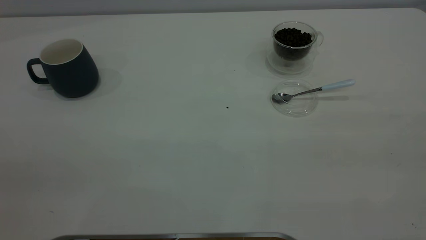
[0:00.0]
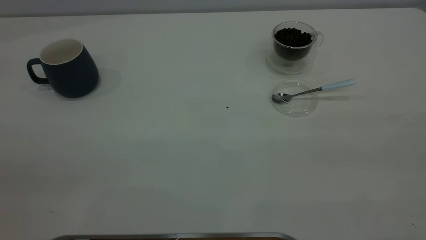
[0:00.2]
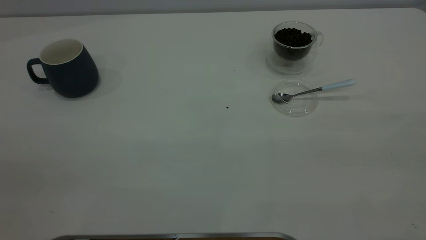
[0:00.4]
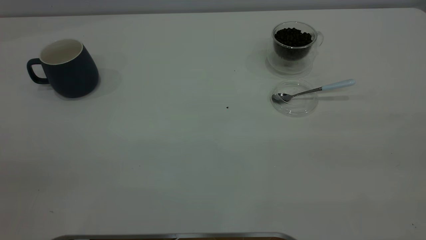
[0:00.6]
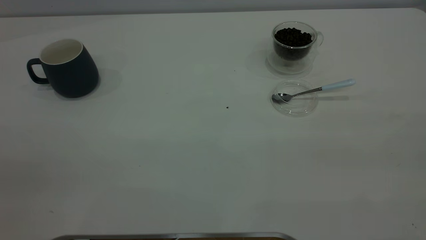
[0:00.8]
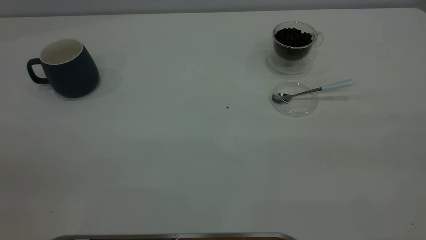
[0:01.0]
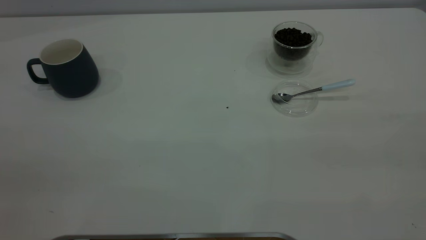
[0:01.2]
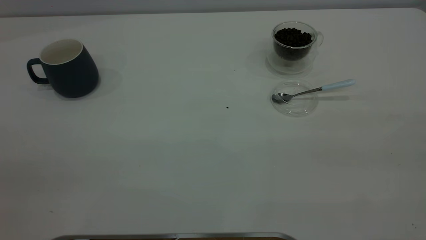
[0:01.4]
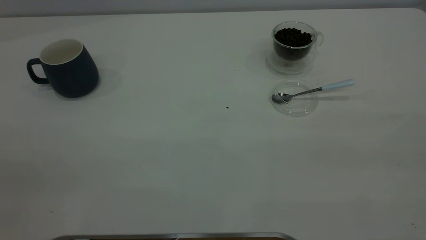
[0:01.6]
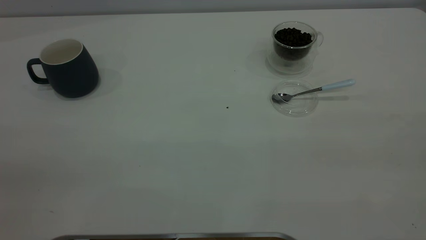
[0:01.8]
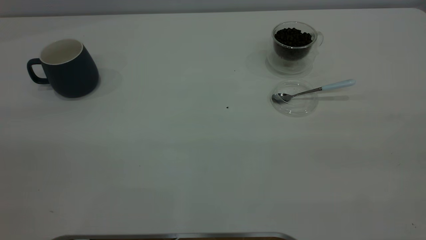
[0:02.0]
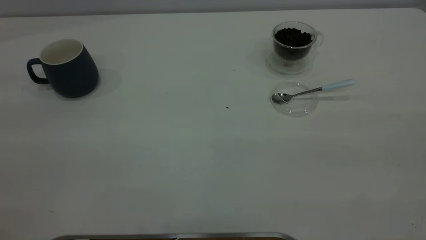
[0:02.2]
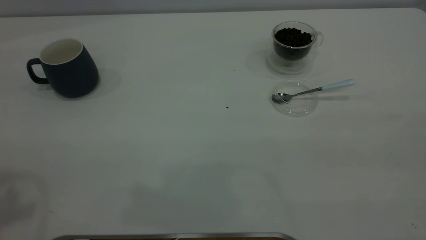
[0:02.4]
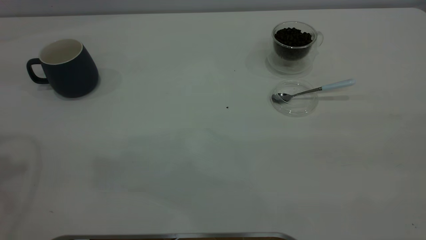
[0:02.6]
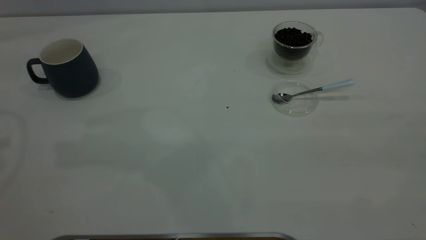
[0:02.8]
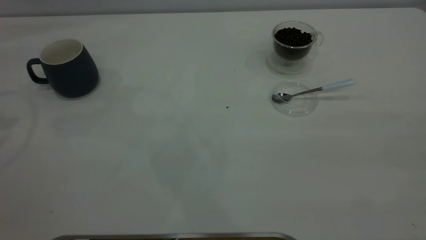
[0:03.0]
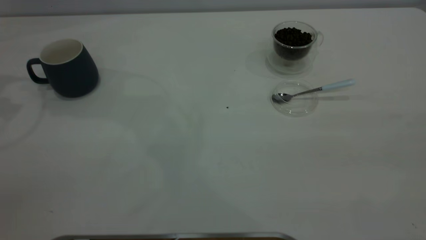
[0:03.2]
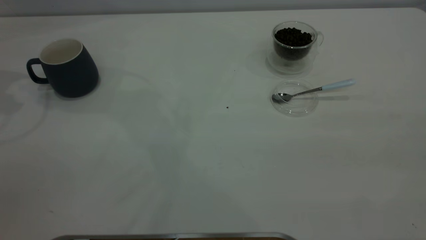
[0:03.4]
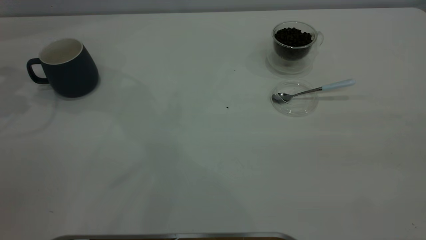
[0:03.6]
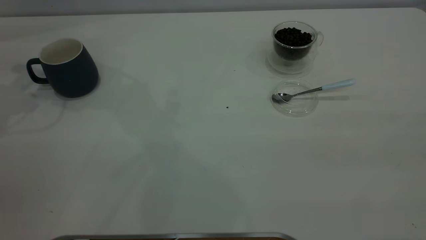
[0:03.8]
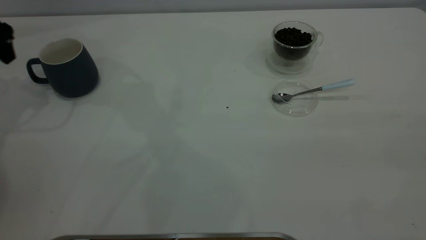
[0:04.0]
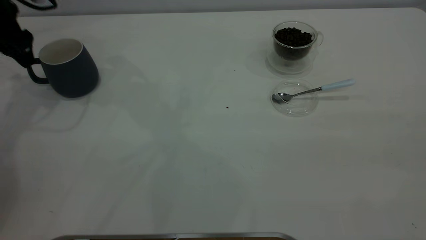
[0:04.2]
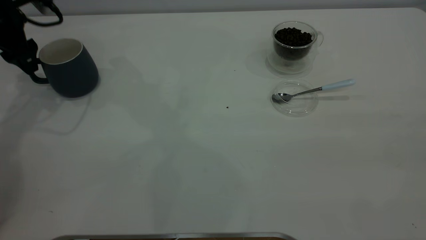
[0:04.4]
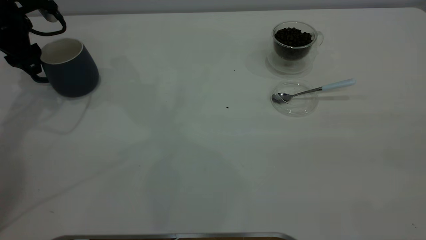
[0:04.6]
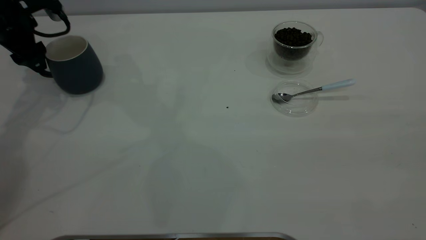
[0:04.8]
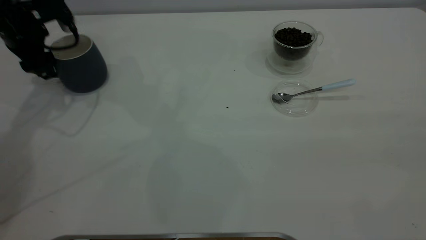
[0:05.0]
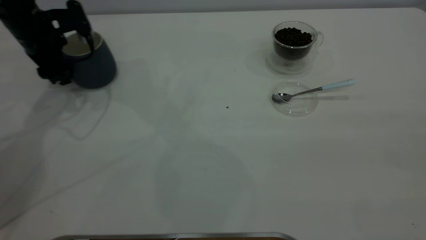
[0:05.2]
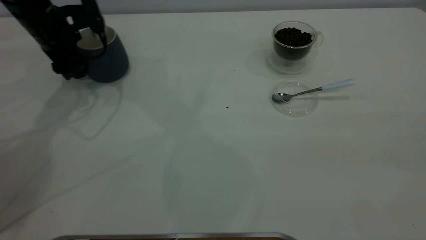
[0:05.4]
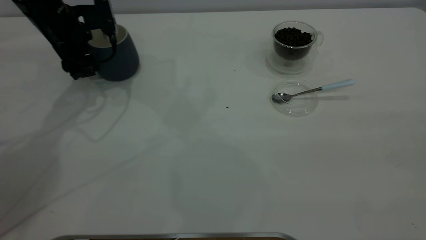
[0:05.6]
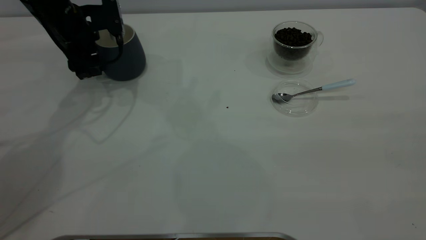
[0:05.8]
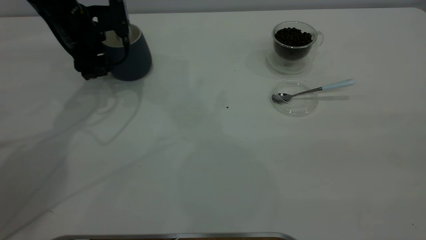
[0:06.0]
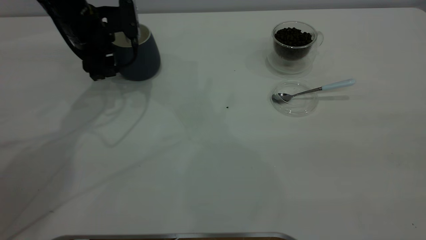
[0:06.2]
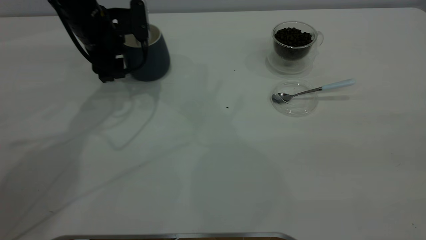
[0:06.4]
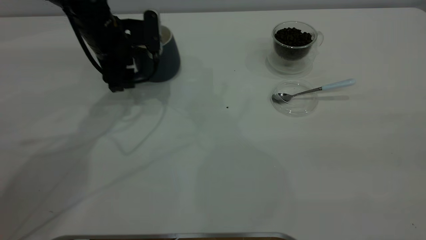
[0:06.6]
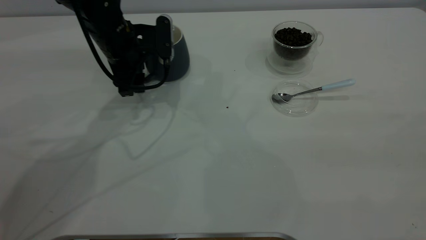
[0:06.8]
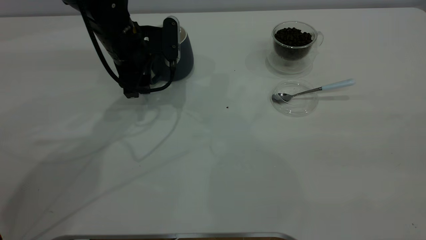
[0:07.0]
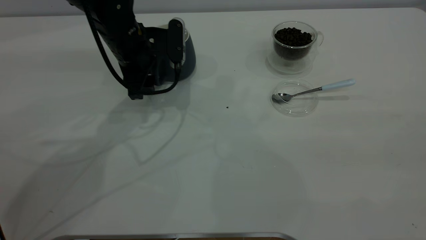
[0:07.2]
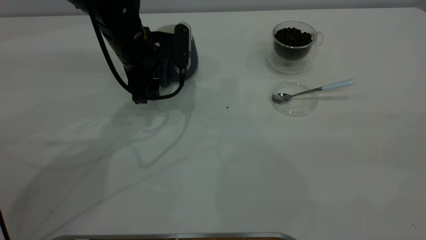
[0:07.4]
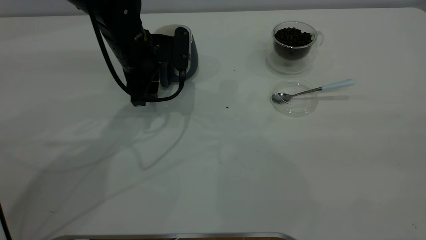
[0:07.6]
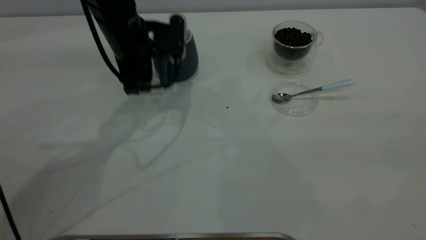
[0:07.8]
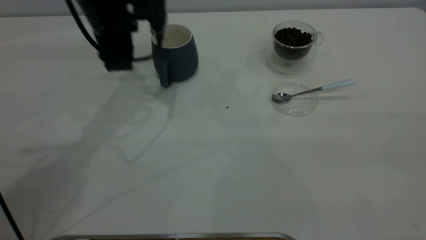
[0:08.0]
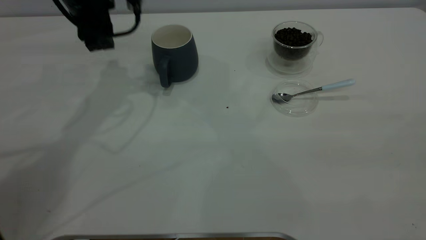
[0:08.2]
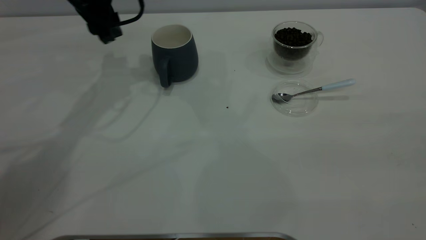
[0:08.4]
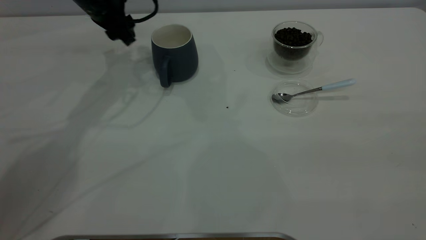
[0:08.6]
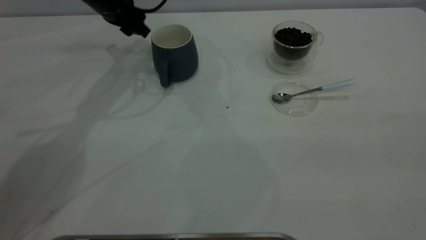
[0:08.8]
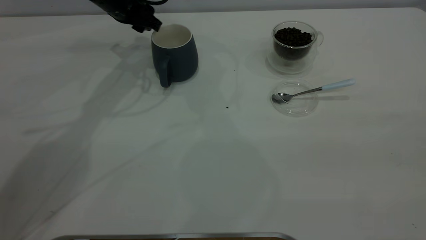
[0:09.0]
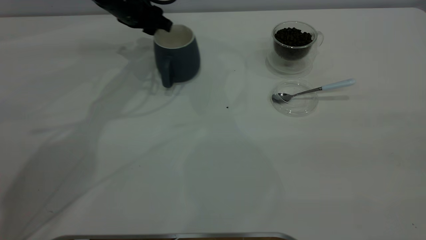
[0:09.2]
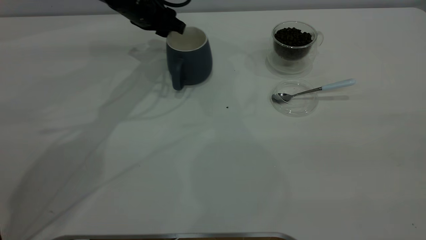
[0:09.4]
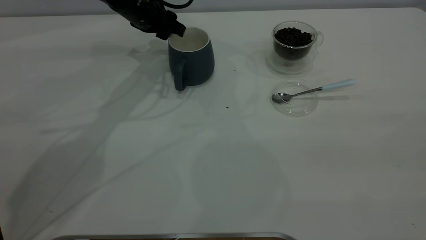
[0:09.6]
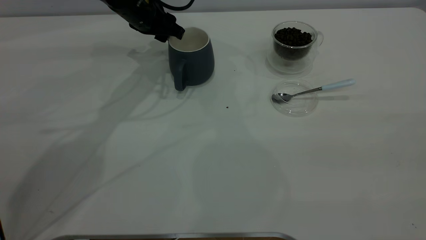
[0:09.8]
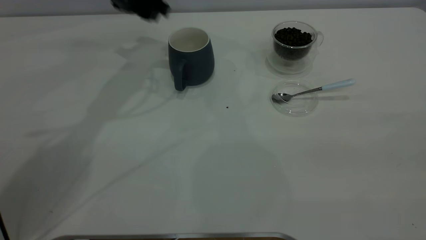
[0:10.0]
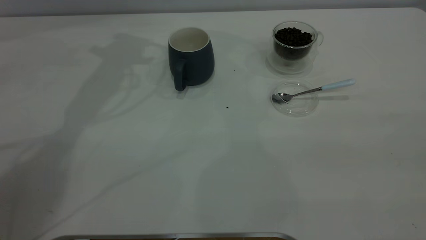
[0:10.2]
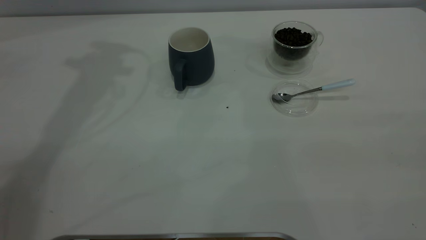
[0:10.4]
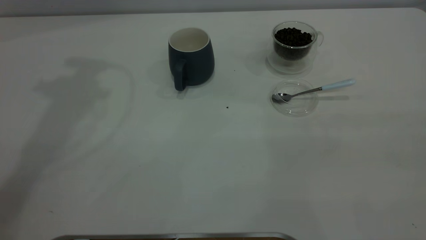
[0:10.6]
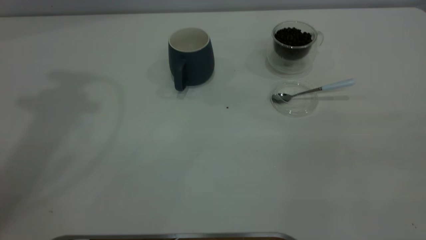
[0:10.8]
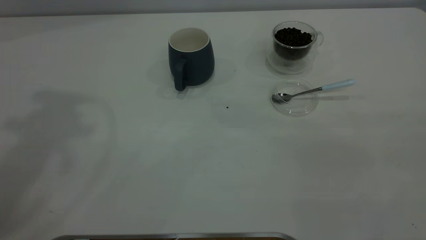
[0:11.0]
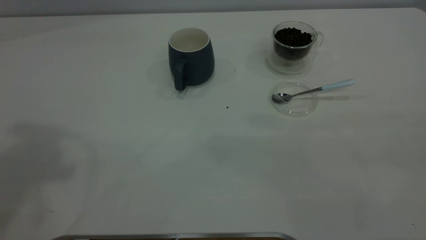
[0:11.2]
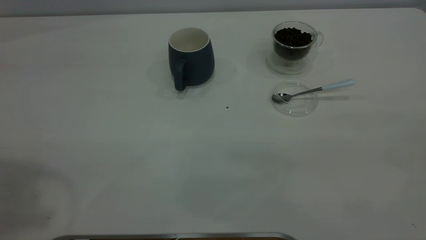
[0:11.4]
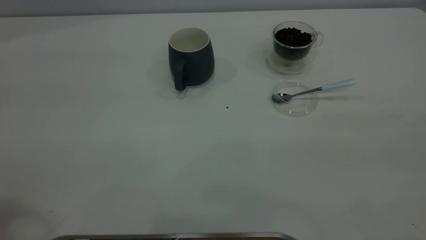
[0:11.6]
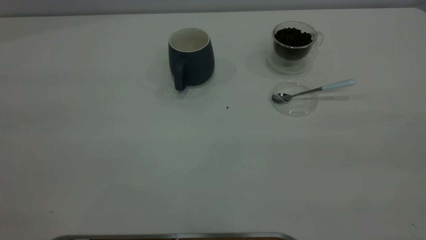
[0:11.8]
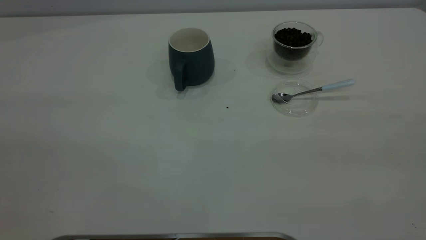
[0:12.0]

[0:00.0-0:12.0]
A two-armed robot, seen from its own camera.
Task of the whole recording: the left gripper place the grey cup in the center of the table, the right gripper take the blue spoon from the cup lid and scoop out the coffee beans from the coffee cup and put them into the grey cup, the right gripper put the spoon back into the cup lid.
Step, 0:00.0 to 0:08.0: Move the cup to the center of view.
0:00.0 to 0:01.6: Both grippers stay put.
0:03.0 to 0:04.4: The left gripper is displaced downward and forward by approximately 20 cm, and opens its fingers.
0:04.4 to 0:06.0: The left gripper heads to the right, covering some 10 cm.
0:06.0 to 0:07.6: The left gripper shifts some 10 cm to the right, and closes its fingers.
0:07.6 to 0:09.0: The left gripper goes about 10 cm forward, and closes its fingers.
0:09.0 to 0:10.4: The left gripper is displaced upward by about 25 cm.

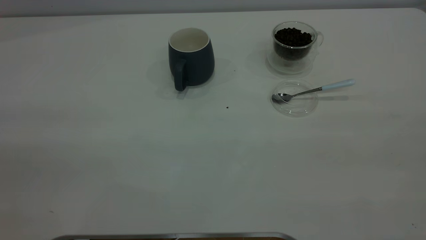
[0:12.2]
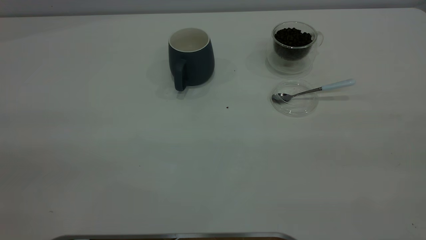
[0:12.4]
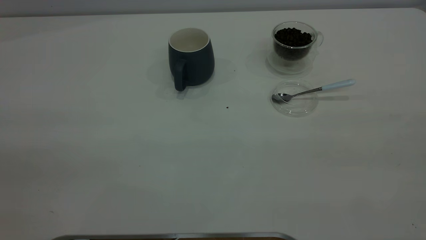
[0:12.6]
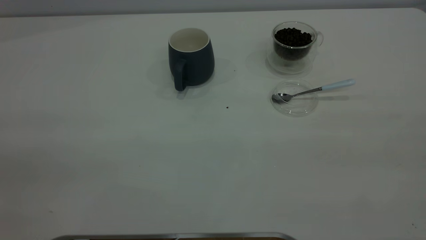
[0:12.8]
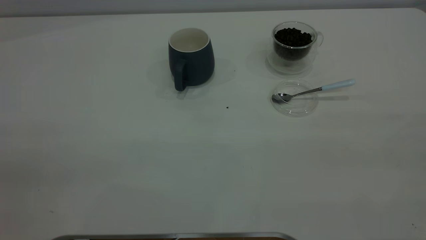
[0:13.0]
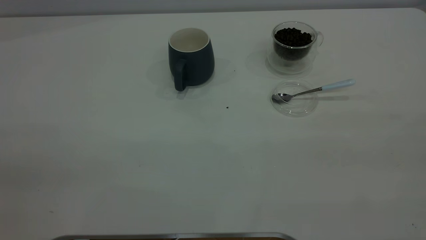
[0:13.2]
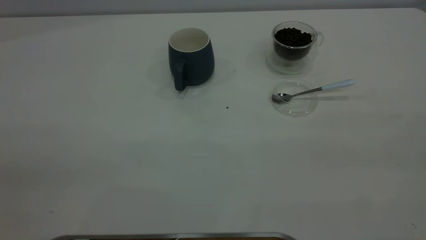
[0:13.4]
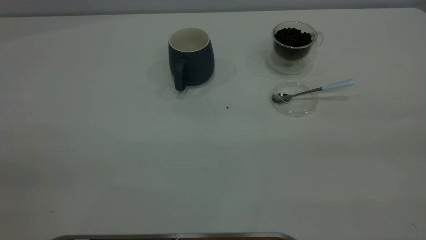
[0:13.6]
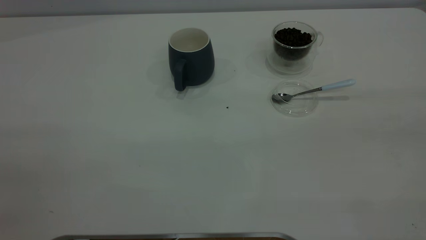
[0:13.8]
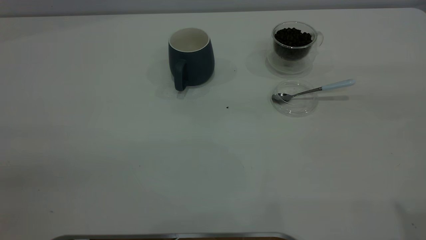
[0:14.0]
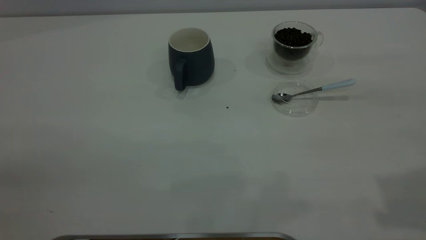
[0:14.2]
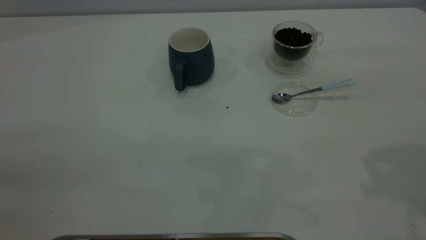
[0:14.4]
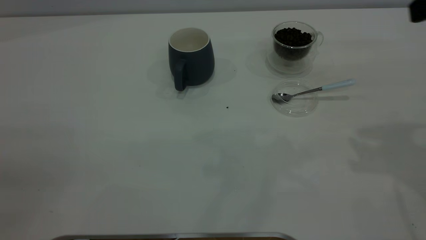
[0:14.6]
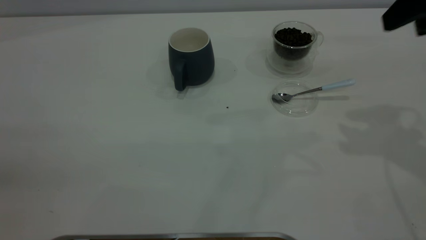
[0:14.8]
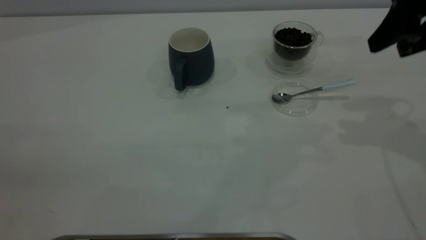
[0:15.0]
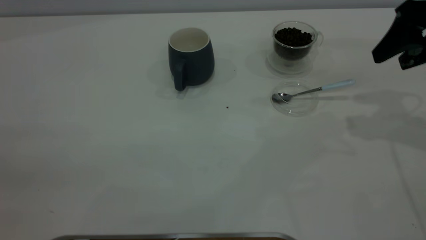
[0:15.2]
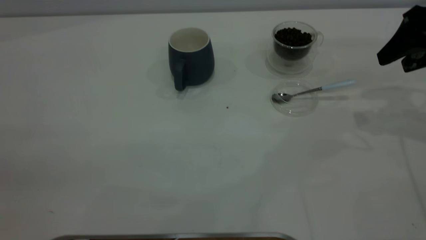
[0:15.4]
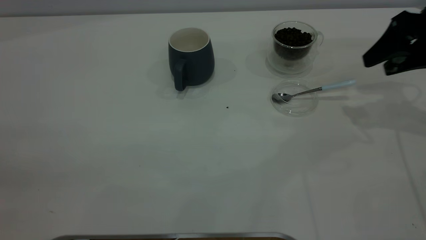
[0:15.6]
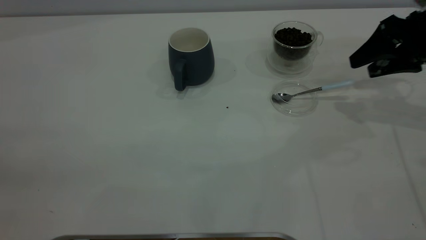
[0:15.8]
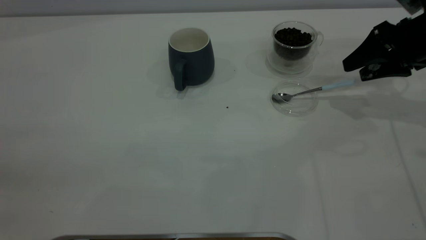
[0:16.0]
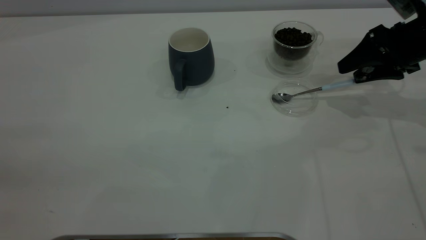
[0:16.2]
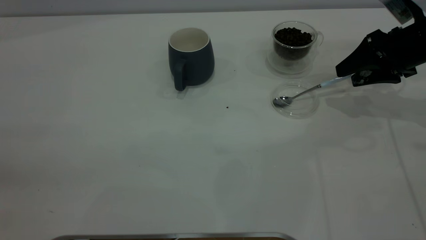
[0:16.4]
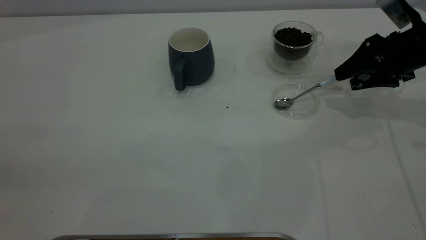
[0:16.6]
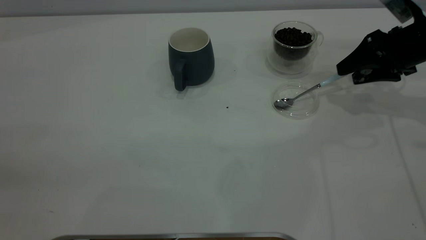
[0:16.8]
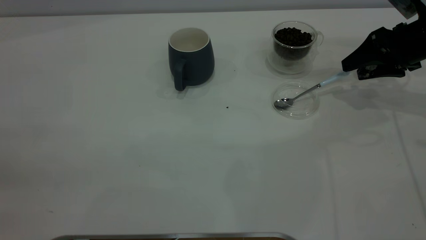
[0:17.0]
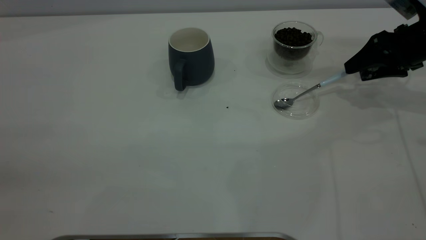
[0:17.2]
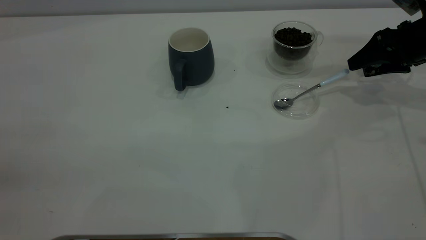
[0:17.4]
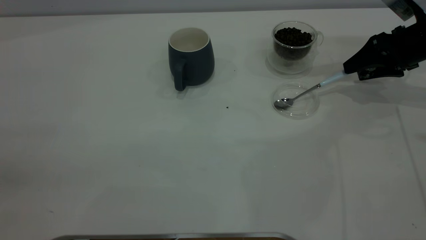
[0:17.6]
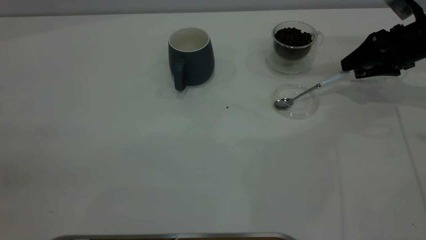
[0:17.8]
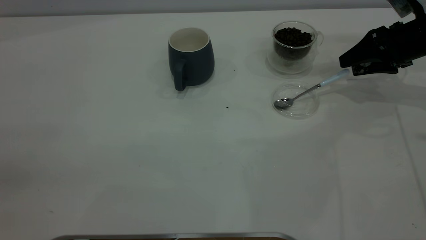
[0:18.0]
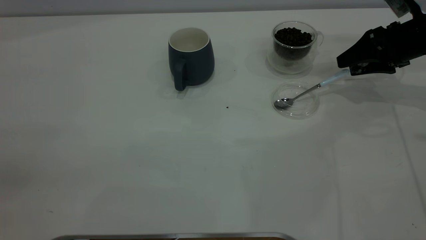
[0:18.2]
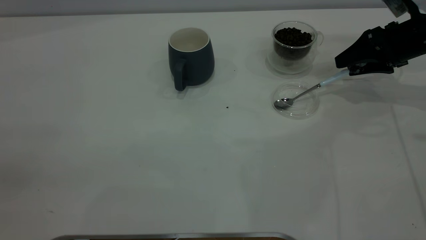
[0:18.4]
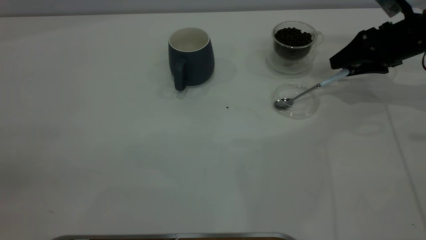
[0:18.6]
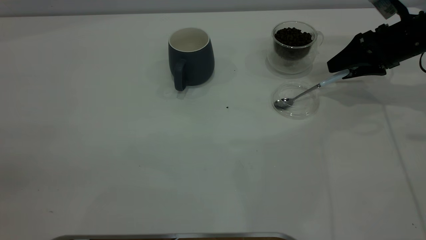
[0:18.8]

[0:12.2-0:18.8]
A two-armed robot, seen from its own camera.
Task of the whole recording: the left gripper place the grey cup in the center of the table, the right gripper take the blue spoon from the cup lid and scoop out the coffee beans from the coffee cup and put them into the grey cup, the right gripper put the spoon back into the cup lid.
0:13.8 to 0:15.4: The right gripper goes about 35 cm forward and downward.
0:15.4 to 0:17.2: The right gripper moves downward and forward, some 10 cm.
0:17.2 to 0:18.8: The grippers stay close to where they were, moving slightly.
